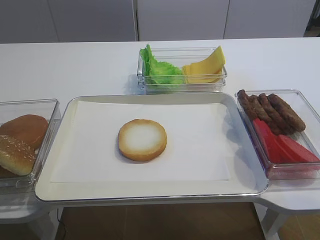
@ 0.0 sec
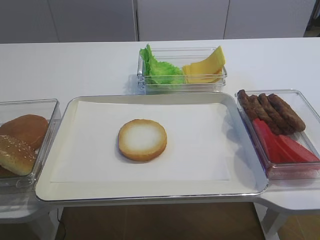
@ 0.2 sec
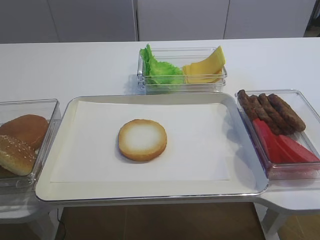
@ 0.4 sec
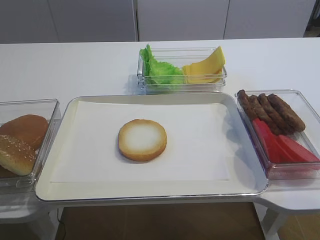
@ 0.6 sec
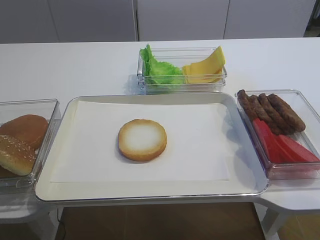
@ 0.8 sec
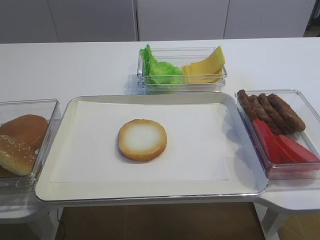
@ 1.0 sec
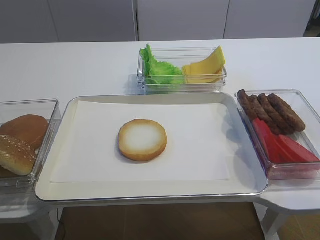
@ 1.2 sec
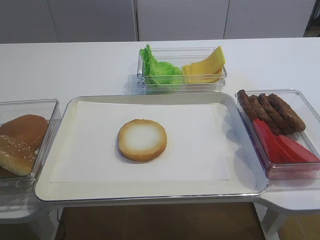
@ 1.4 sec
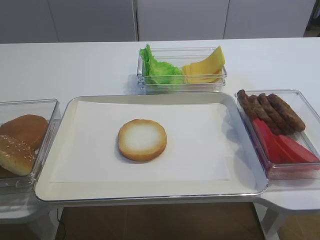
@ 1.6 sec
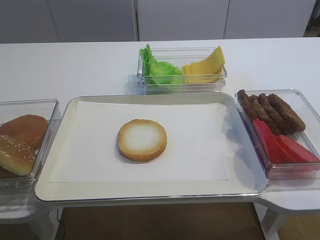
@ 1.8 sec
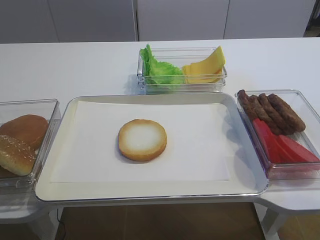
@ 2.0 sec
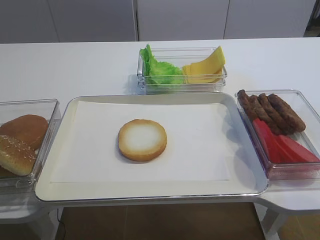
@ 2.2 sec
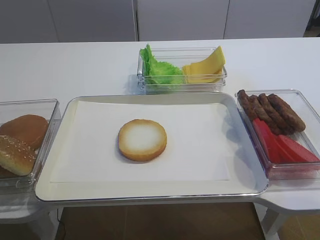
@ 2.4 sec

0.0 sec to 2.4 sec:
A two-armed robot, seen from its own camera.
1.2 sec to 2.4 sec: Both grippers stay about where they are.
